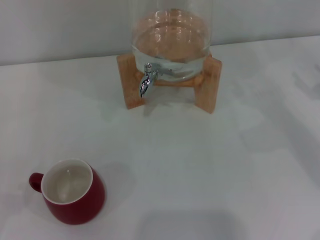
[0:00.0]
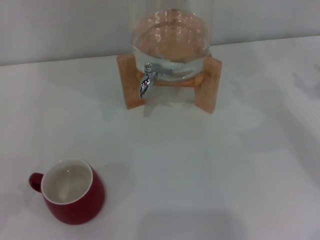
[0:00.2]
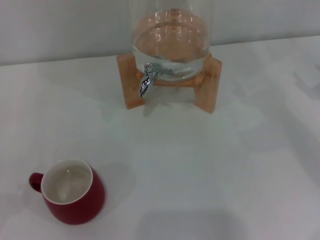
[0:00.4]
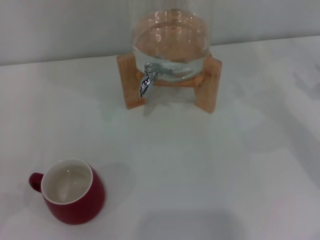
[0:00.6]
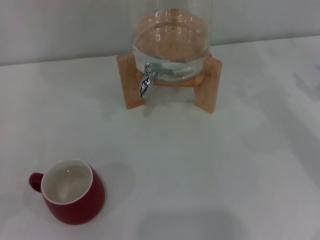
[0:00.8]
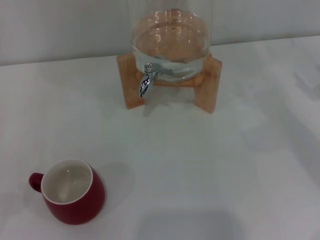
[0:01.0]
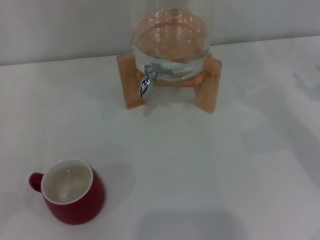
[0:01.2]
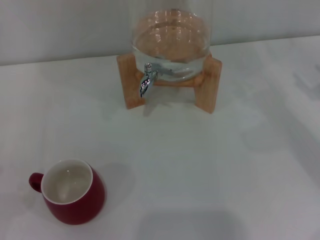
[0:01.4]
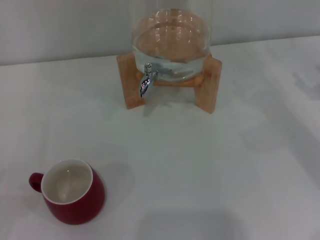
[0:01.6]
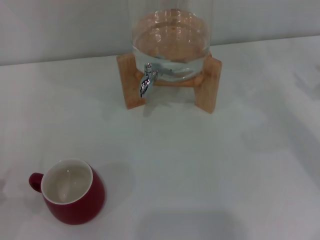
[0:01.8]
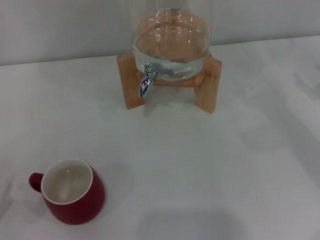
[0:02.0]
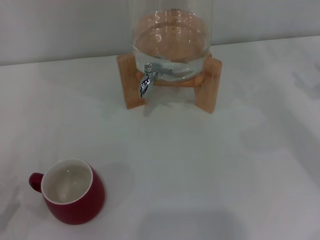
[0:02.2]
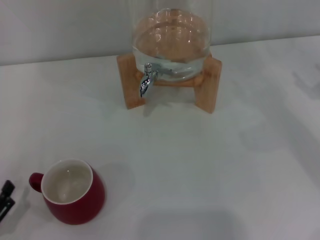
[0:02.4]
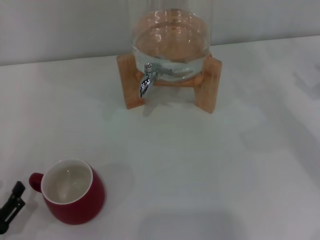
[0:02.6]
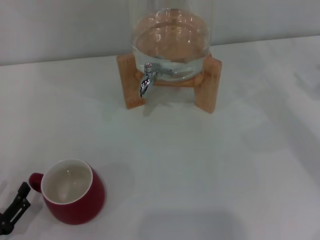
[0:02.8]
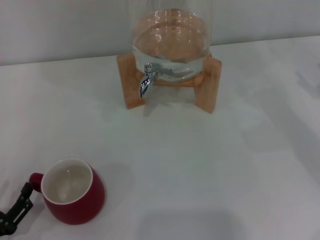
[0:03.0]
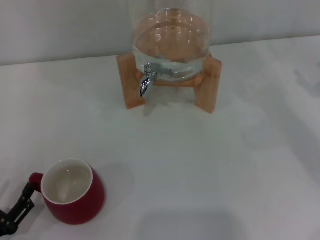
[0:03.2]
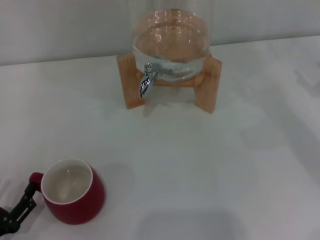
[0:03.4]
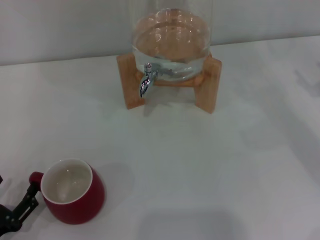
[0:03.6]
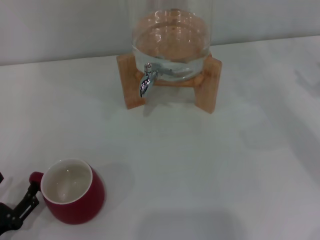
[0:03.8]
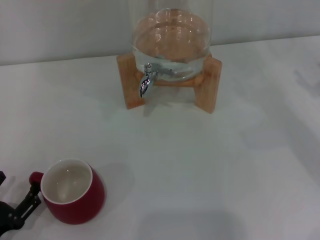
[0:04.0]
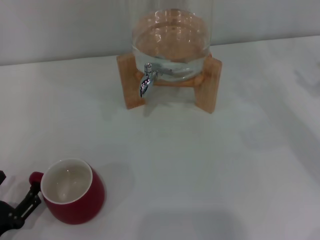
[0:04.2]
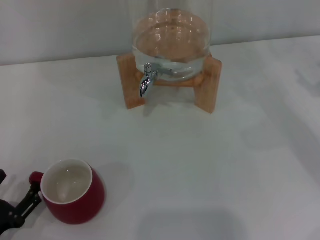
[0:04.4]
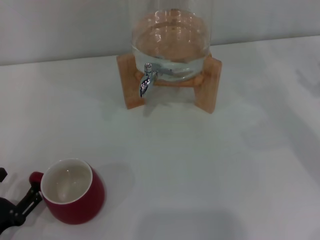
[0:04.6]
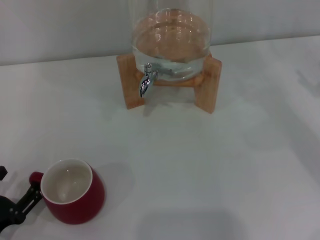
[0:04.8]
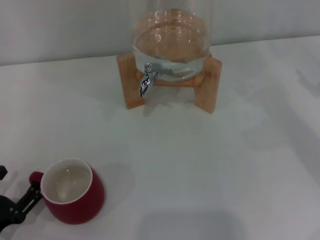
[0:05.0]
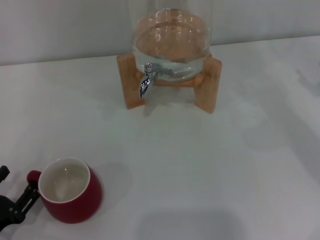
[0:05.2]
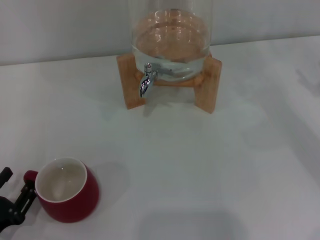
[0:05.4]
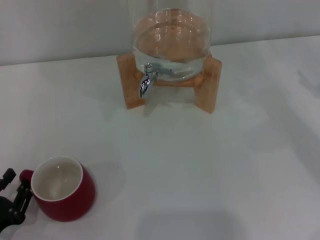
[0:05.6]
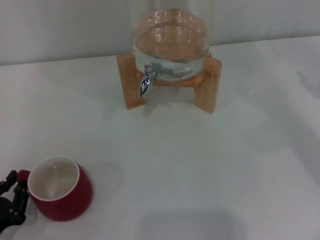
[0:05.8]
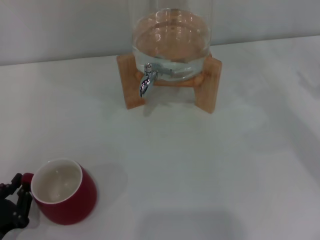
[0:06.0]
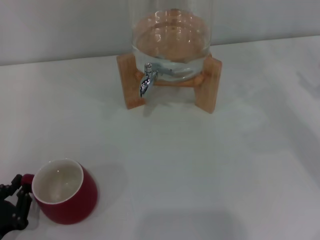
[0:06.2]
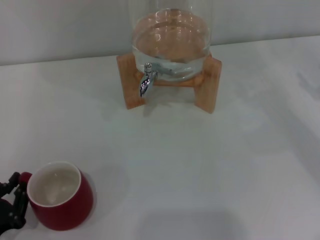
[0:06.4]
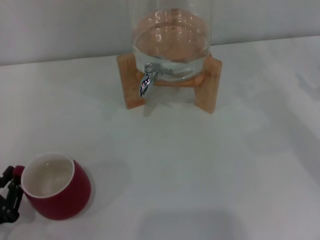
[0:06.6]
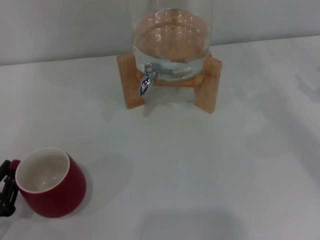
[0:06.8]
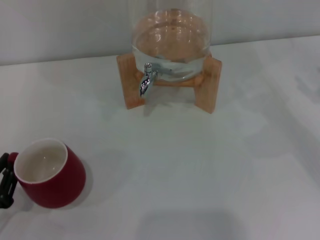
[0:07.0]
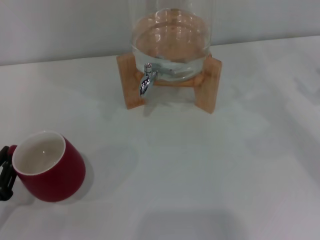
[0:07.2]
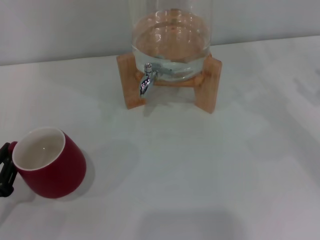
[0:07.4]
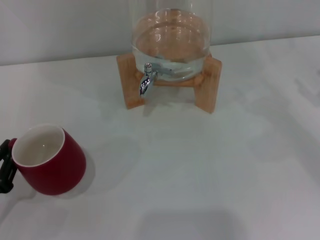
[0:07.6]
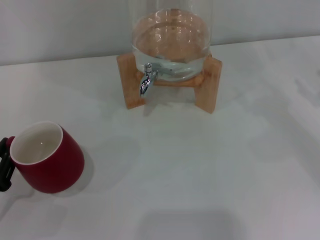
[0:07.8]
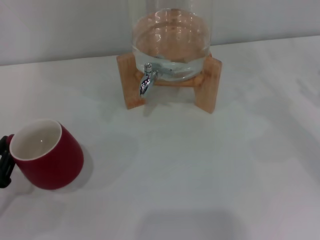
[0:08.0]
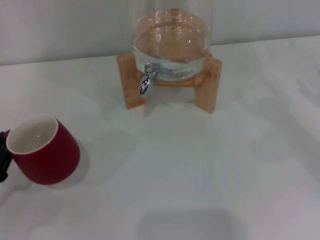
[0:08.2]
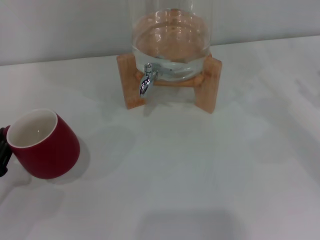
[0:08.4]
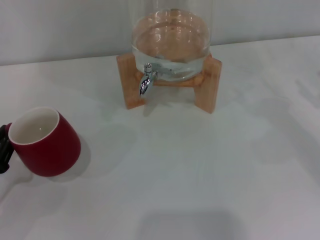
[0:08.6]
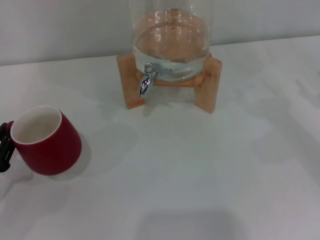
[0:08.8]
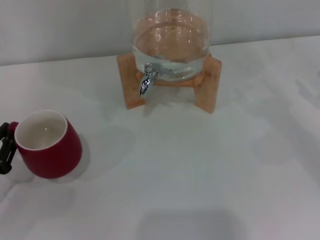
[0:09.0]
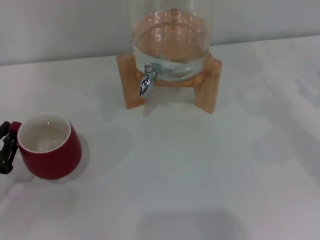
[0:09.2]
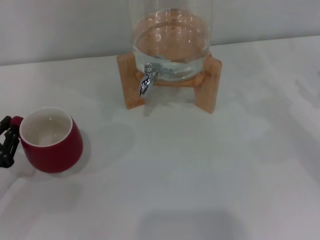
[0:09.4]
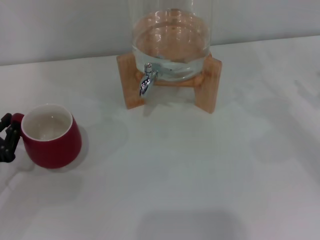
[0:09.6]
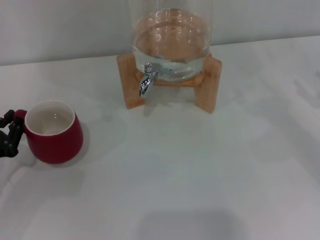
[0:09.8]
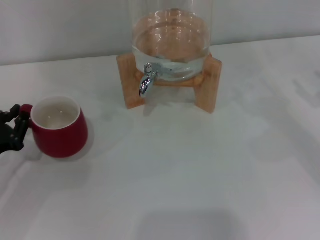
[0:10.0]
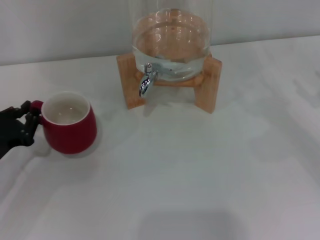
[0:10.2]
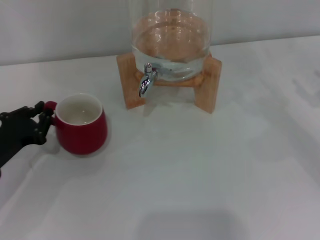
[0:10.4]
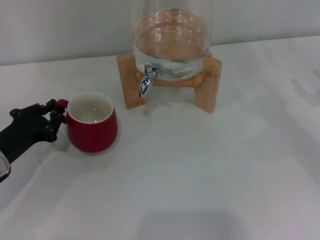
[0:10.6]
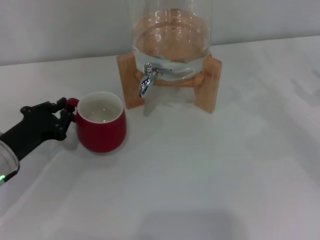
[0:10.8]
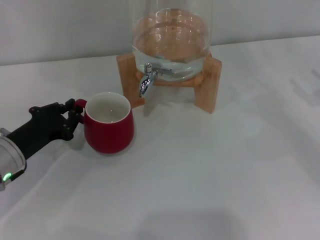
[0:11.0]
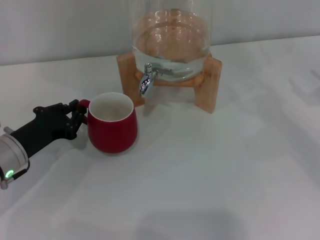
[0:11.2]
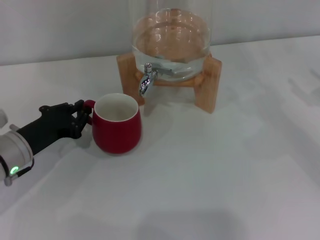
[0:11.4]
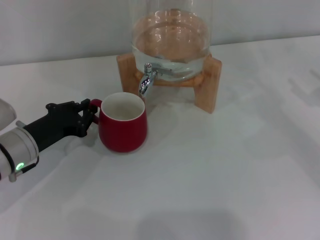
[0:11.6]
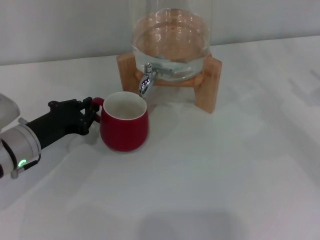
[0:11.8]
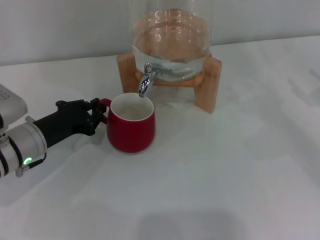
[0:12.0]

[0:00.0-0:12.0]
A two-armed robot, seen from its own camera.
Task of the whole recording: the left gripper pick up the red cup and place it horizontally under the faucet, the right gripper turn on the faucet to fill the cup, and then turn off the faucet.
0:01.6 to 0:03.0: The left gripper moves to the right, roughly 5 cm.
0:03.0 to 0:04.4: The grippers move only a little.
0:04.4 to 0:06.0: The left gripper closes up.
0:06.0 to 0:07.6: The left gripper shifts by roughly 5 cm.
0:07.6 to 0:09.0: The grippers move only a little.
0:09.0 to 0:10.4: The left gripper is displaced forward by some 5 cm.
0:10.4 to 0:12.0: The left gripper is displaced to the right by roughly 5 cm.

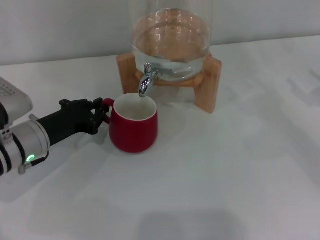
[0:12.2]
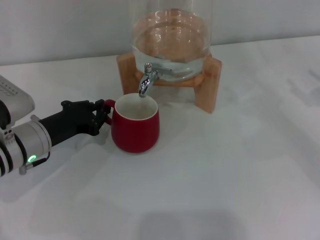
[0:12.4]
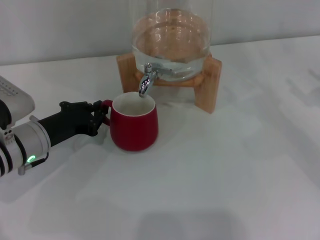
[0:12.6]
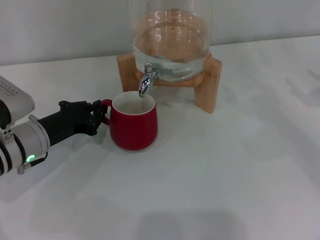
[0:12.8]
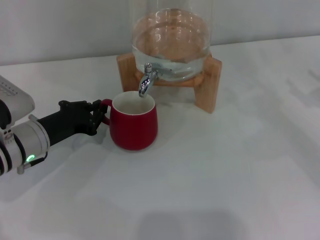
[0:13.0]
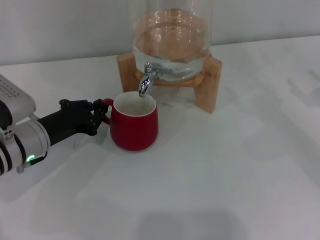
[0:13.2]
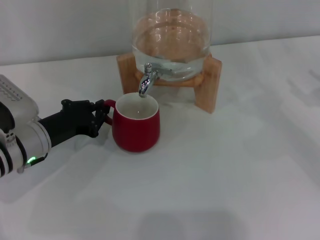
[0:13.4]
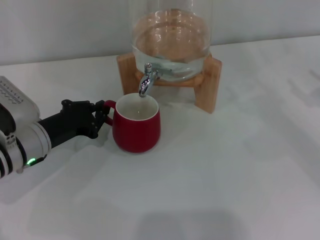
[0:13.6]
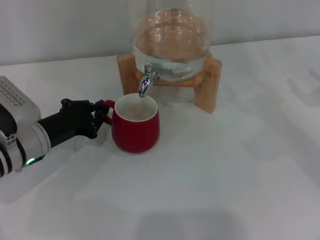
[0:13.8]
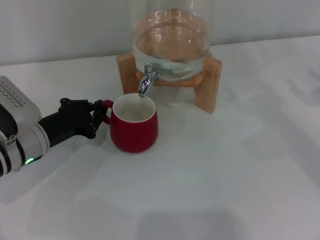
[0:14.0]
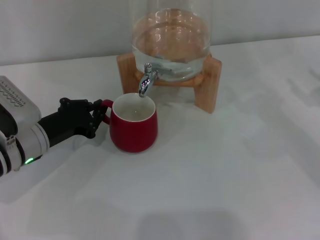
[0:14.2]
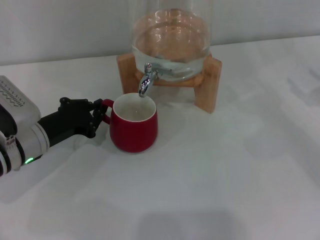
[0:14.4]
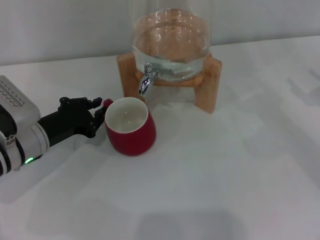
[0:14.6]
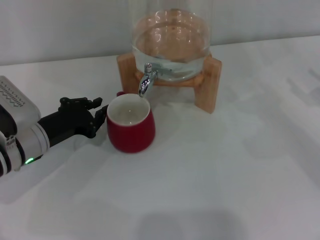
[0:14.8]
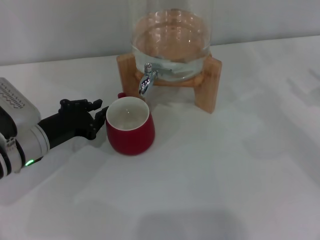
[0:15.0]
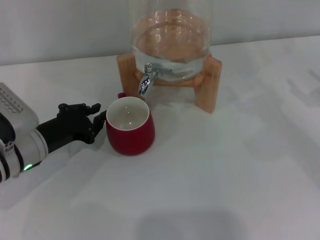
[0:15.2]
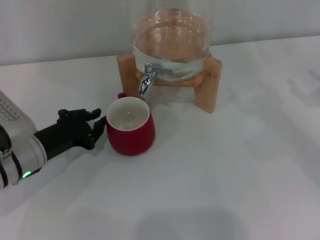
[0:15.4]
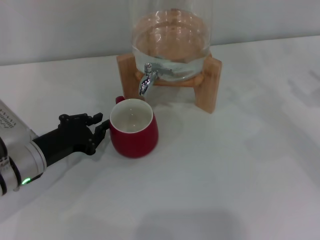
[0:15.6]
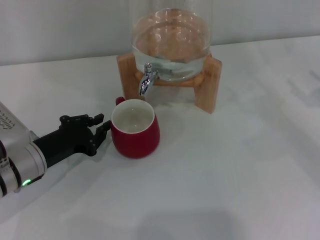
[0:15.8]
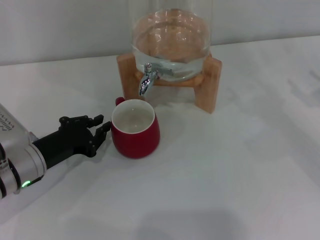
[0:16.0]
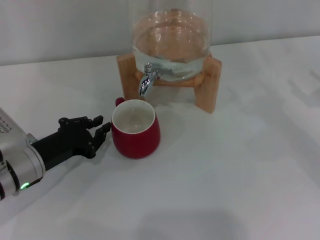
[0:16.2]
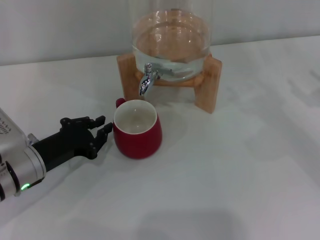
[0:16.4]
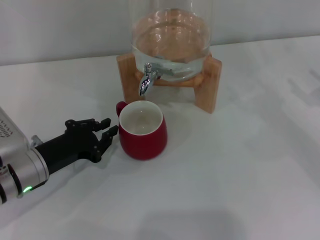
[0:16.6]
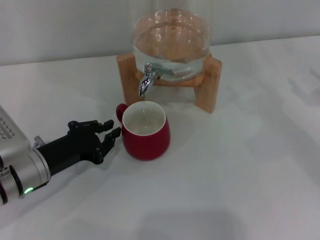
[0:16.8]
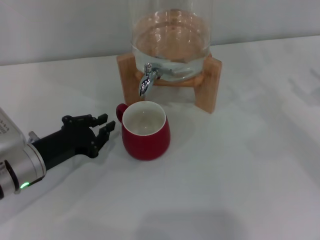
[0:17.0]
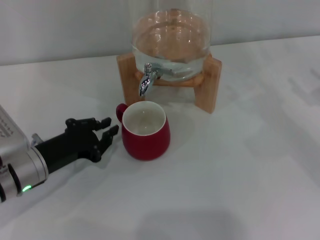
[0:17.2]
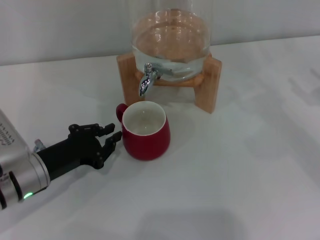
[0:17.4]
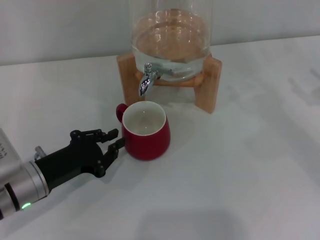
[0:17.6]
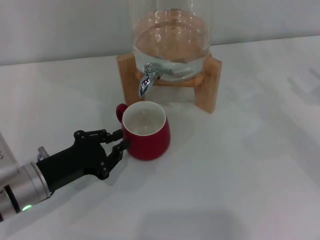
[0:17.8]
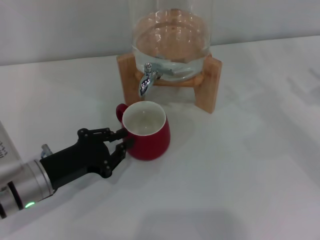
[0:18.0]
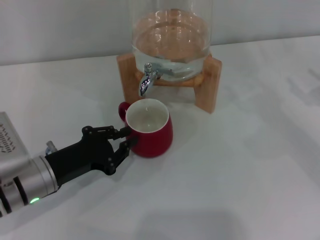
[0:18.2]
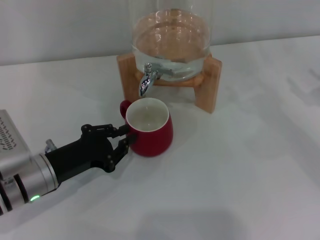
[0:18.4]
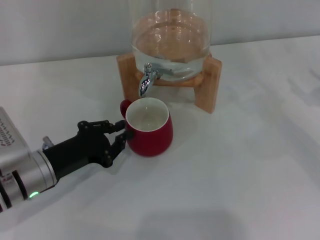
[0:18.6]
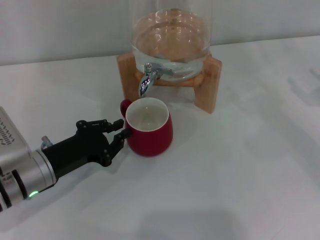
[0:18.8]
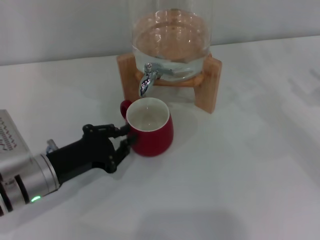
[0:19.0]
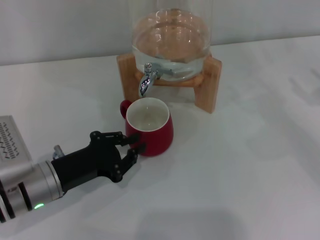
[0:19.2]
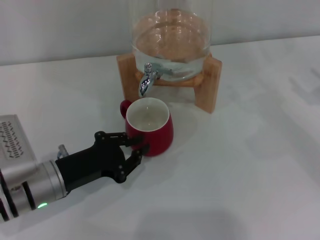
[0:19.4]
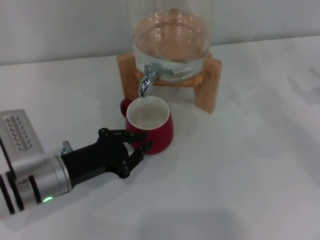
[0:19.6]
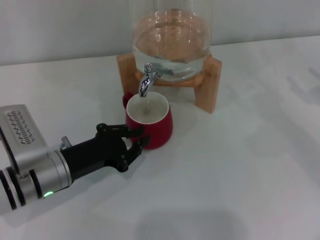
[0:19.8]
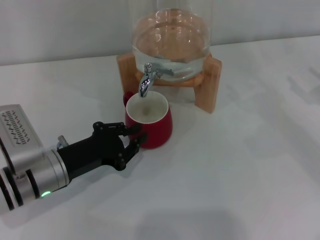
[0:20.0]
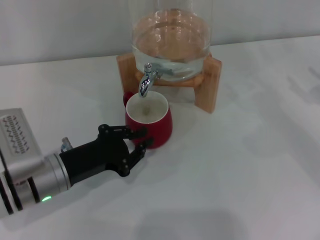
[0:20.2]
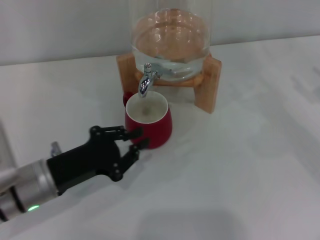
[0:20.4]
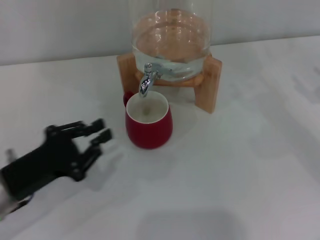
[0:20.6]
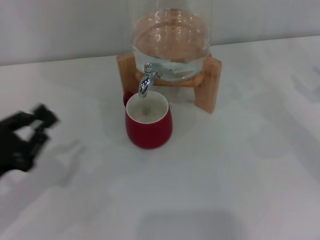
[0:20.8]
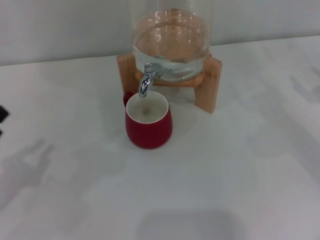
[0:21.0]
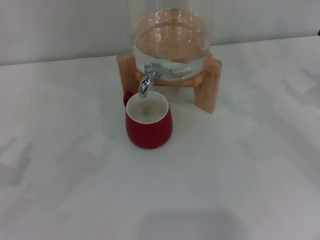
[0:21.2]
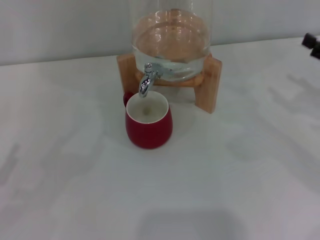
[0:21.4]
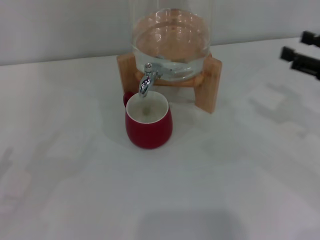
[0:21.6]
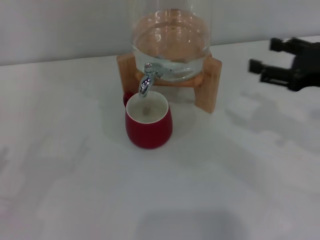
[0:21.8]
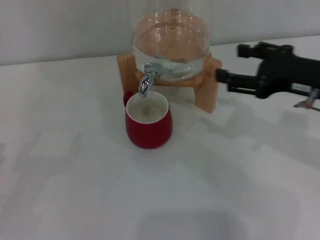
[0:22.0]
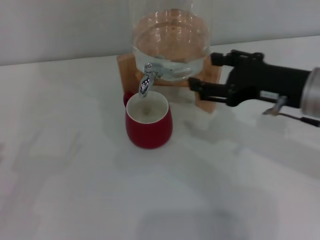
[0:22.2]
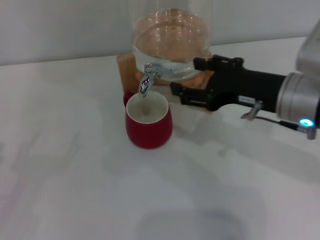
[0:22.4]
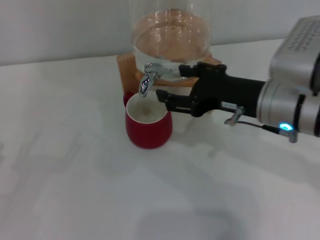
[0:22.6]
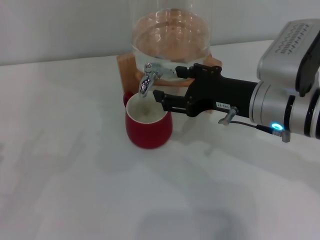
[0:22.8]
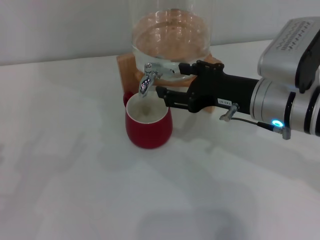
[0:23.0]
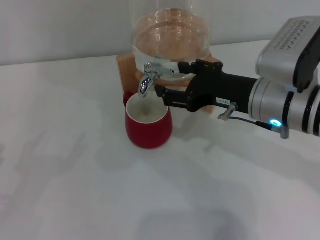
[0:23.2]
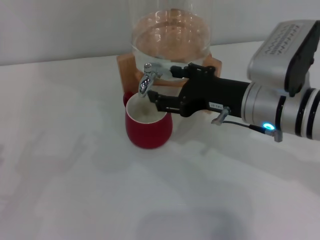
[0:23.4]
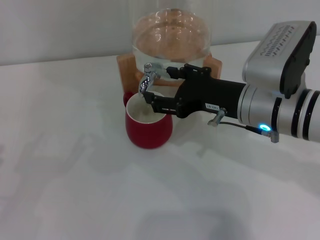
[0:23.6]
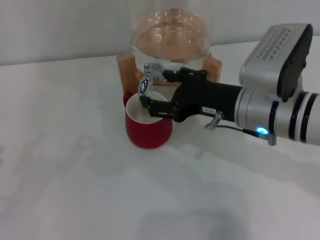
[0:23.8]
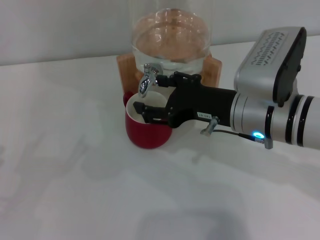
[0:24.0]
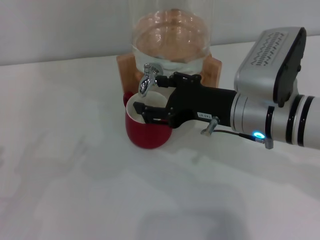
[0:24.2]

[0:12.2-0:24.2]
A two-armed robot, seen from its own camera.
Task of the whole recording: the left gripper pick up the red cup and place it horizontally under the faucet, the right gripper turn on the faucet to fill the cup, and then turn off the faucet.
Step, 0:12.2 to 0:20.4: Move the cup beneath the water dispenser nozzle with the left gripper.
0:12.2 to 0:13.8: The grippers move only a little.
0:13.8 to 0:15.2: Both grippers stay about where they are.
0:15.2 to 0:18.2: There are only small adjustments of the grippers.
0:18.2 to 0:19.8: There are only small adjustments of the grippers.
0:19.8 to 0:21.2: The left gripper heads to the left and backward, covering about 20 cm.
0:21.2 to 0:22.6: The left gripper opens its fingers. Meanwhile the right gripper heads to the left, covering approximately 20 cm.
0:22.6 to 0:24.2: There are only small adjustments of the grippers.
